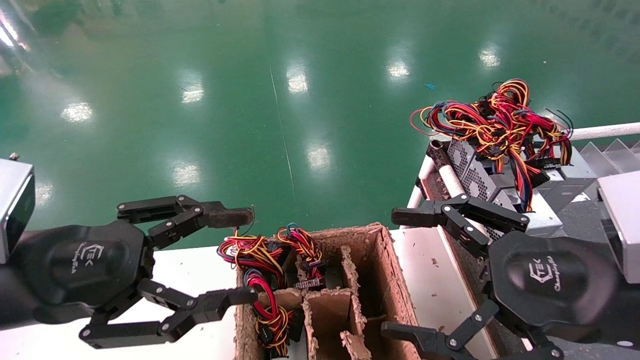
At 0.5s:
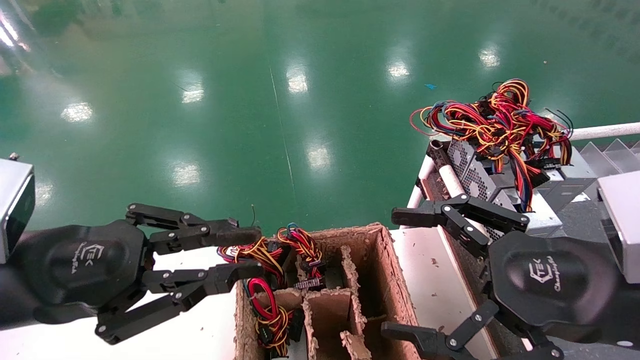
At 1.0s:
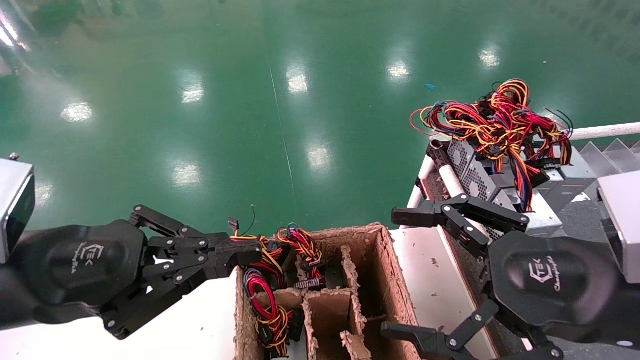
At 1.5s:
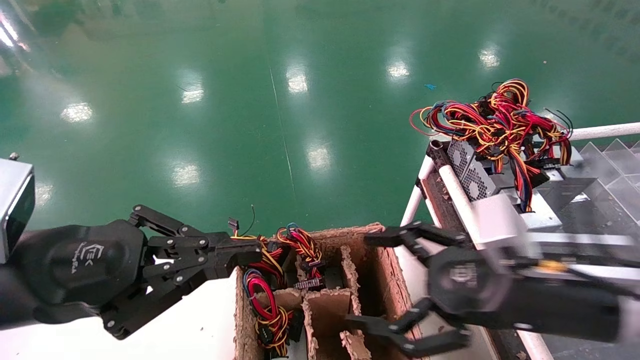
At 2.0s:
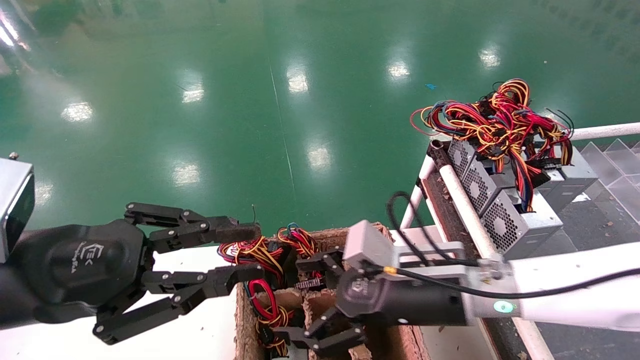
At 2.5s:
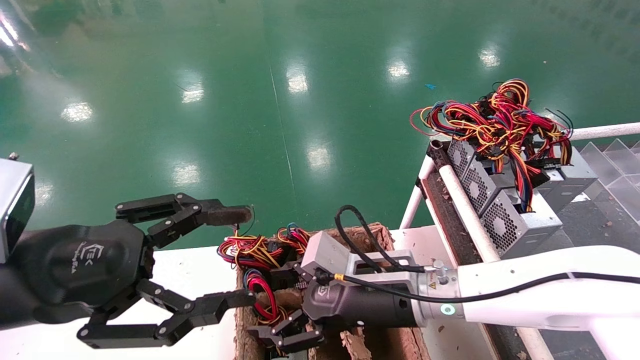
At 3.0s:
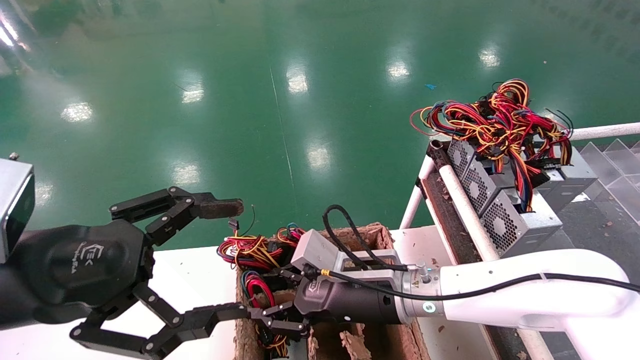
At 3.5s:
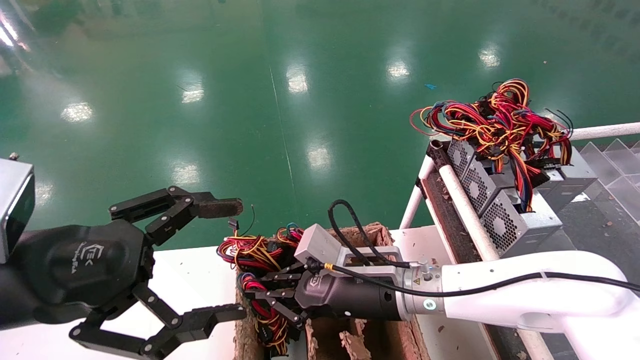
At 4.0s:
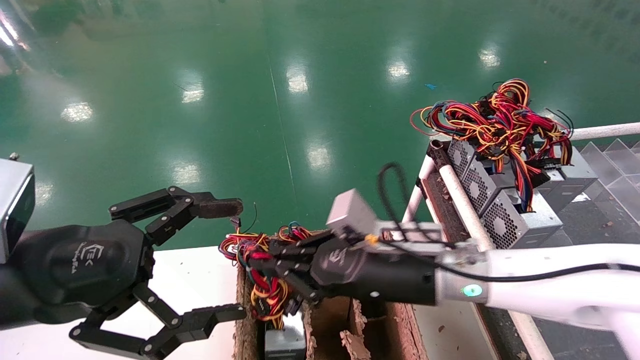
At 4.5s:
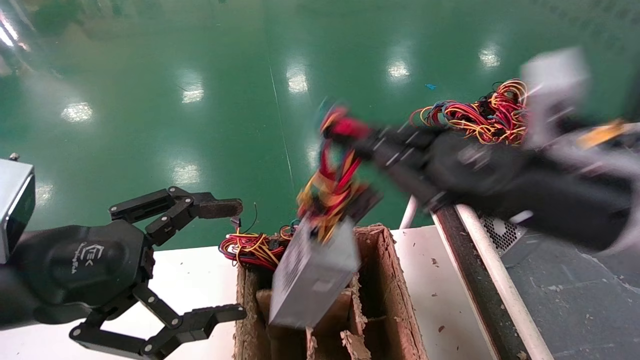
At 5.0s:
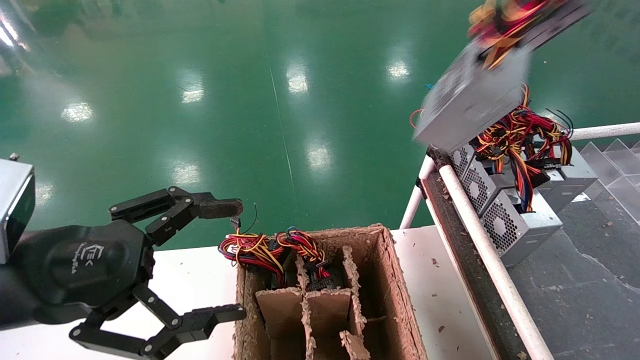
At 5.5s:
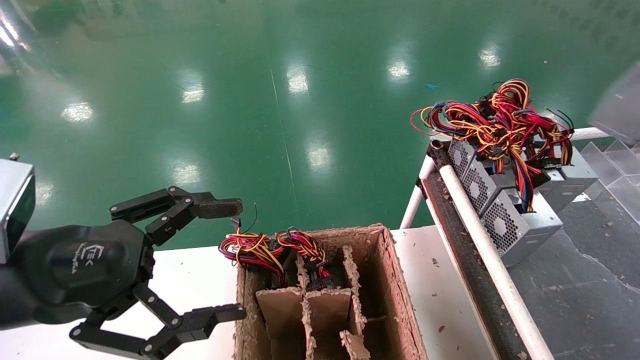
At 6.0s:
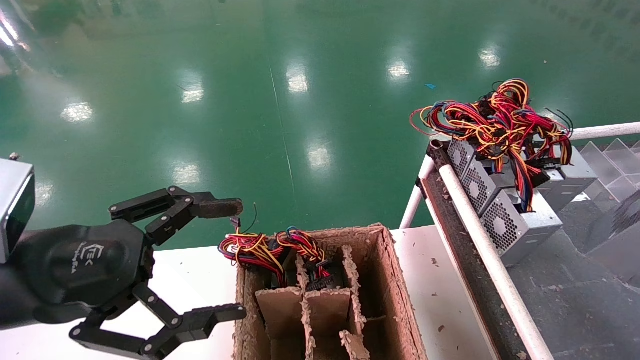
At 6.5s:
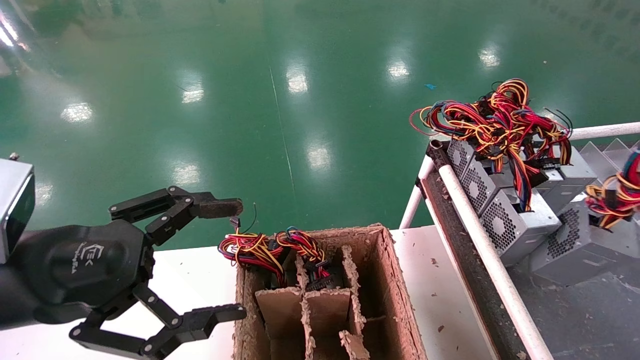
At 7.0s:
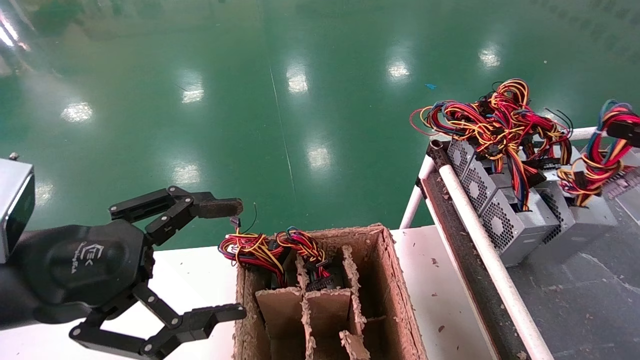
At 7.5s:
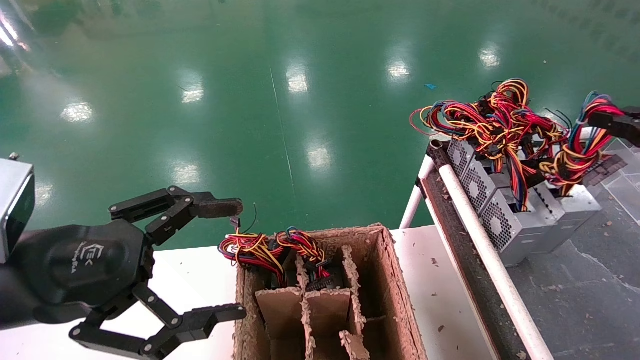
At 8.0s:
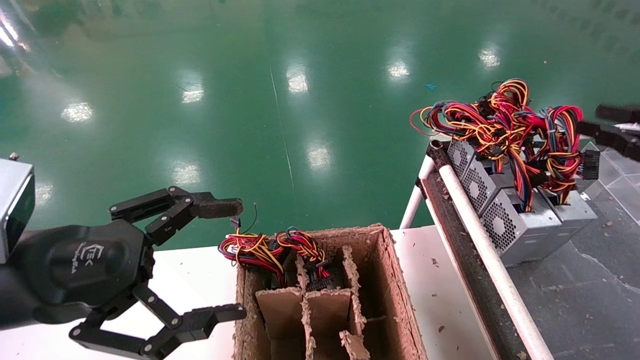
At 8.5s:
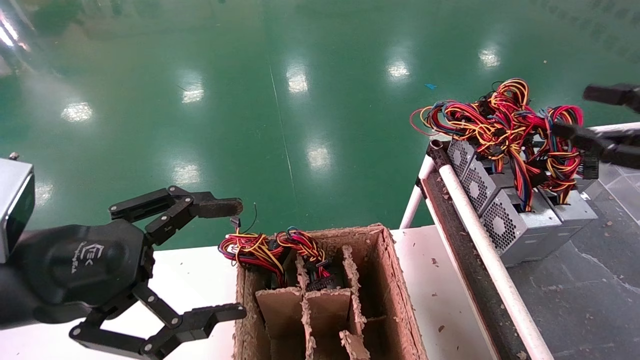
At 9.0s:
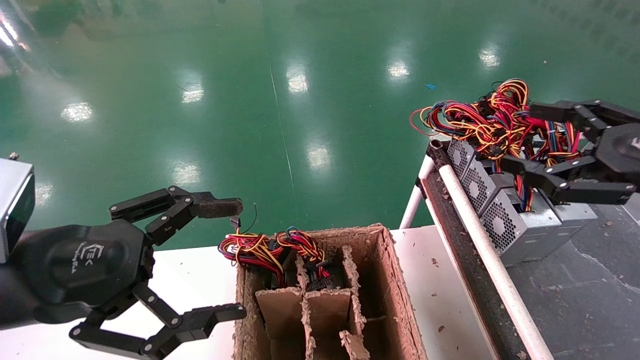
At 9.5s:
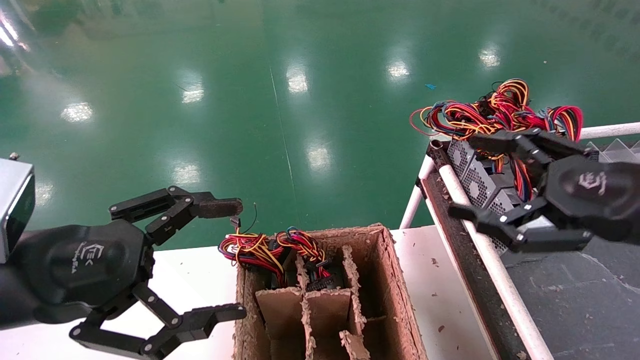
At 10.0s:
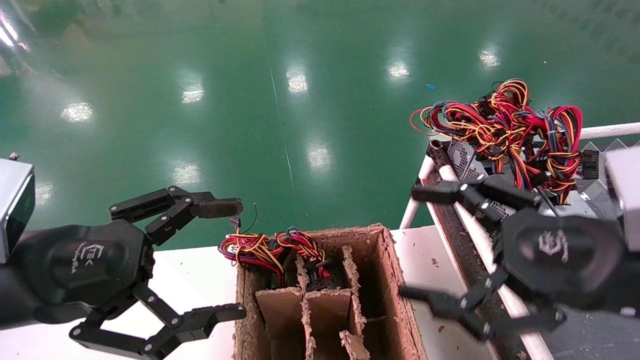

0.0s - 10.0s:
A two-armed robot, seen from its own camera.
Step, 1.5s - 3.5s: Grab and lift the power supply from the large box.
Step, 4.0s - 7.5s: Place the power supply on the operating table.
0.0s - 2.0s: The left gripper closes its fingers. Meanwhile the right gripper travels to the left, forward and downward by approximately 20 cm.
2.0s - 4.0s: The right gripper closes. The left gripper opens.
4.0s - 6.0s: The right gripper travels to the right by some 40 cm.
6.0s - 8.0s: The right gripper is displaced forward and to the left by some 10 cm.
8.0s - 10.0s: The right gripper travels to the left by approximately 20 cm, and opens up.
